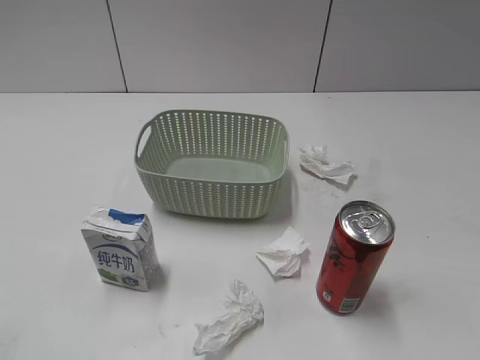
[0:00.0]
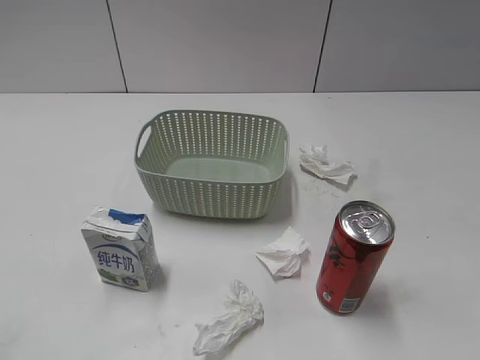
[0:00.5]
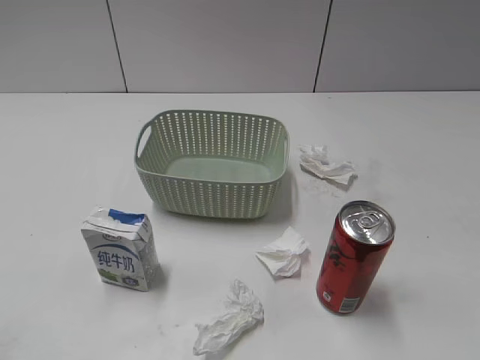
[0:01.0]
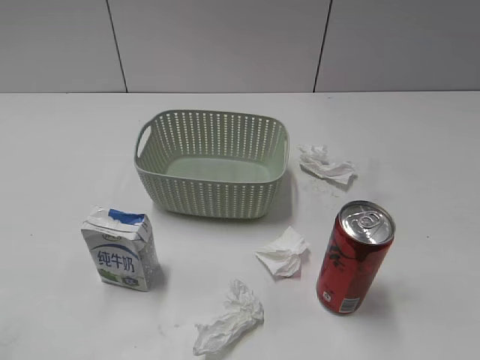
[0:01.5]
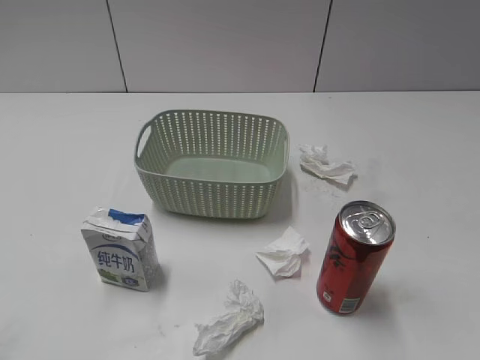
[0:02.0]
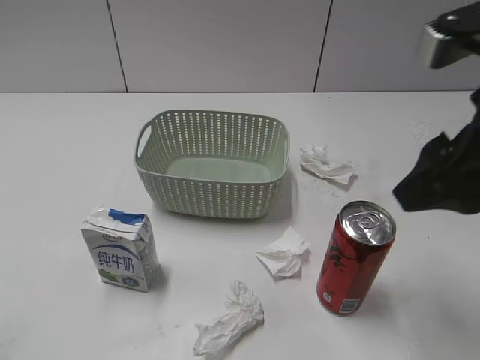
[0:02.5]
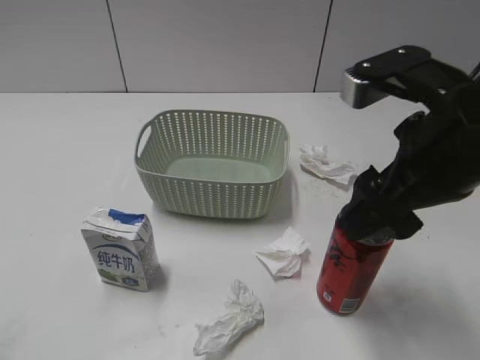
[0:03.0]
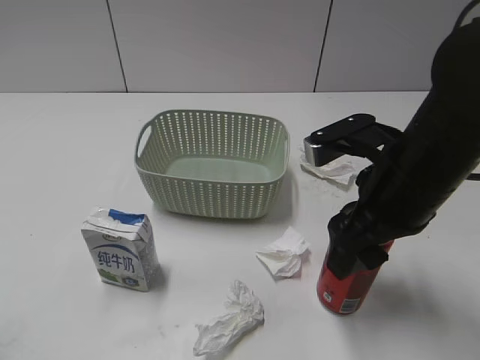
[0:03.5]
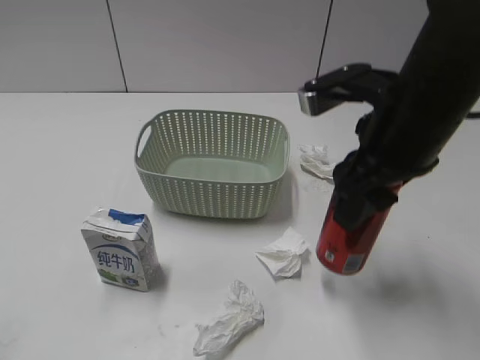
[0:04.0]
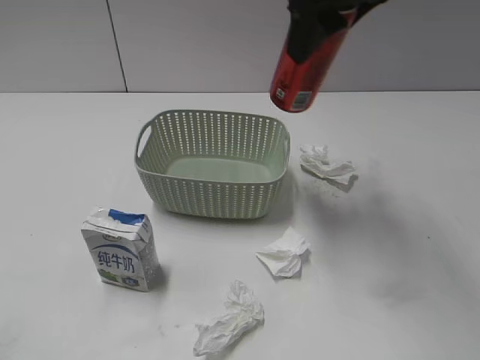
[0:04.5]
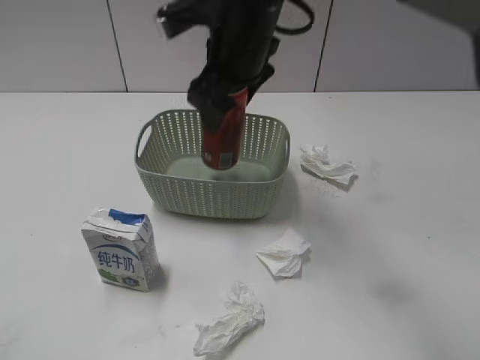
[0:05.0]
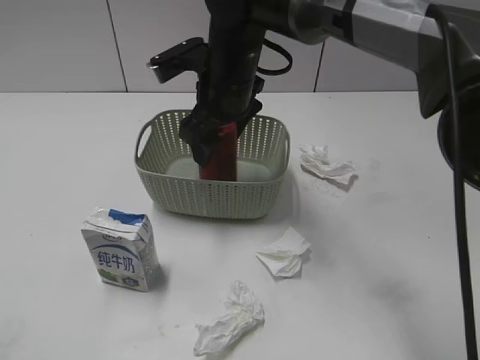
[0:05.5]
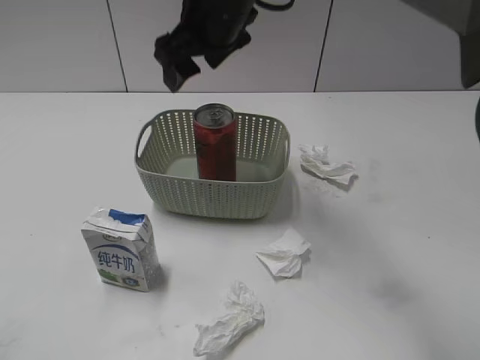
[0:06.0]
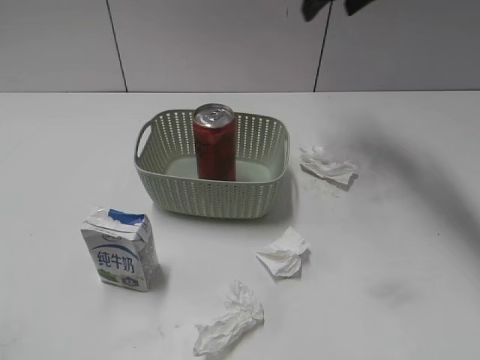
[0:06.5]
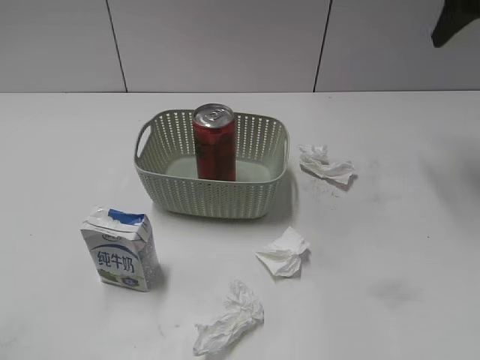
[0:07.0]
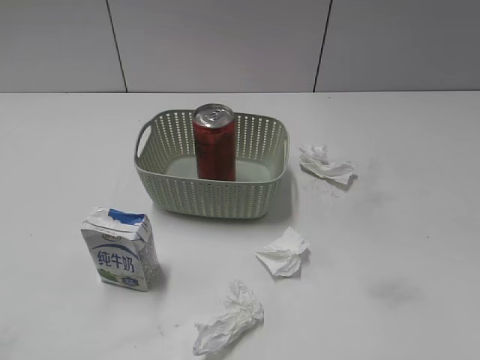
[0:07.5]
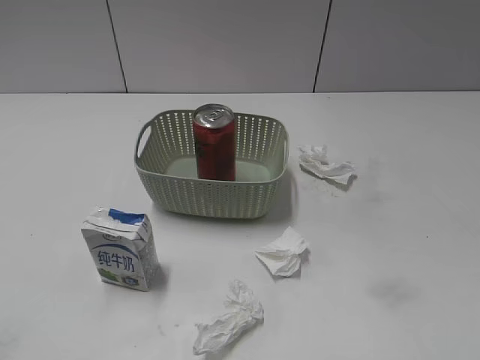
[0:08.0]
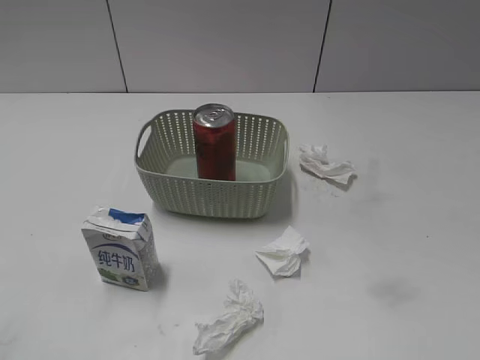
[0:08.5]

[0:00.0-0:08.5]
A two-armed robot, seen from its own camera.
Step, 0:02.5 to 0:03.5: Grasp the cola can with right gripper.
Step, 0:04.0 to 0:06.0: Place the cola can in the basket with right gripper.
0:02.0 to 0:04.0: The right gripper shifts approximately 20 cm to the left, forward and downward, and closes up.
0:04.0 to 0:06.5: The right gripper heads forward, covering about 20 cm, and opens up.
0:06.5 to 0:08.5: The right gripper moves backward, roughly 50 cm.

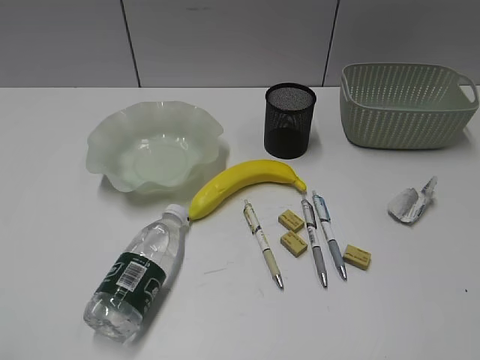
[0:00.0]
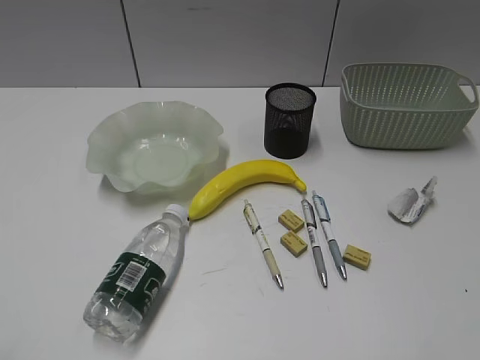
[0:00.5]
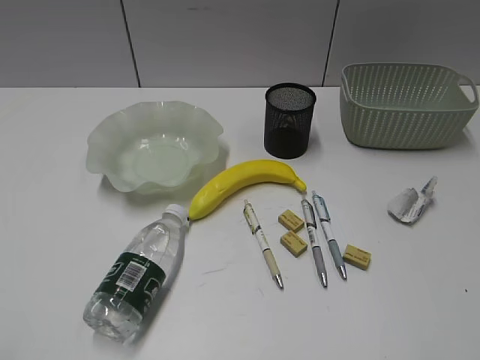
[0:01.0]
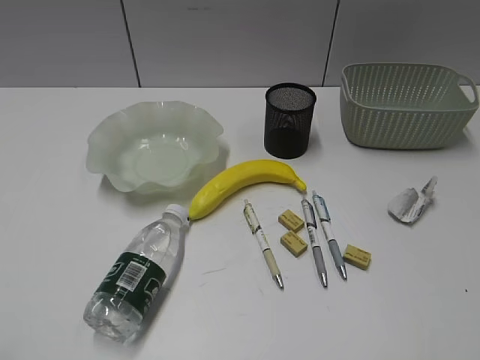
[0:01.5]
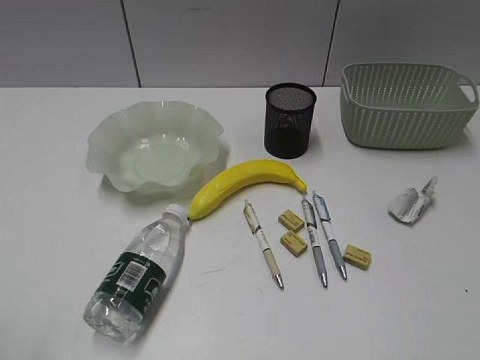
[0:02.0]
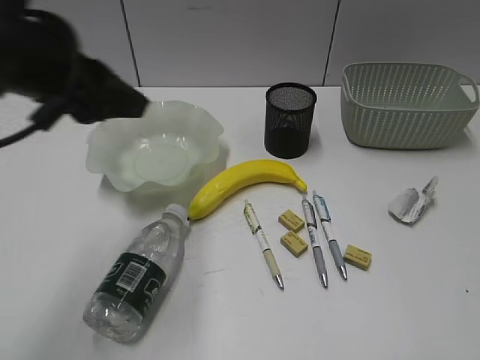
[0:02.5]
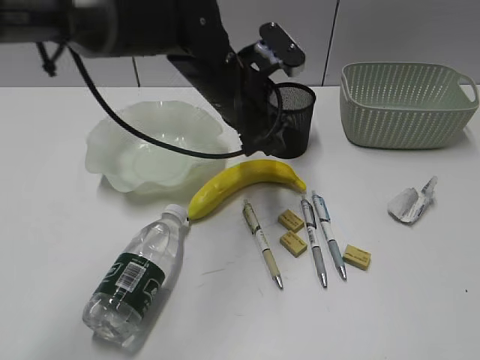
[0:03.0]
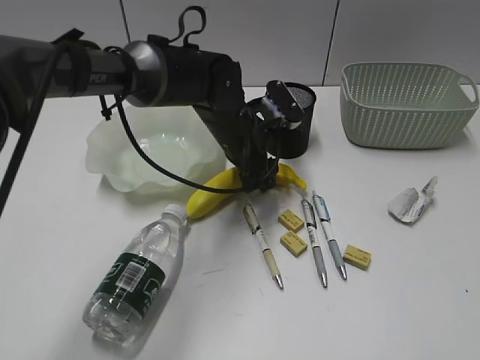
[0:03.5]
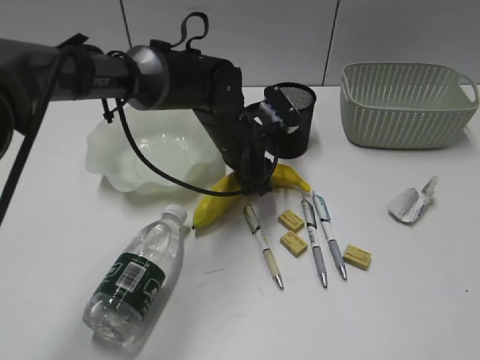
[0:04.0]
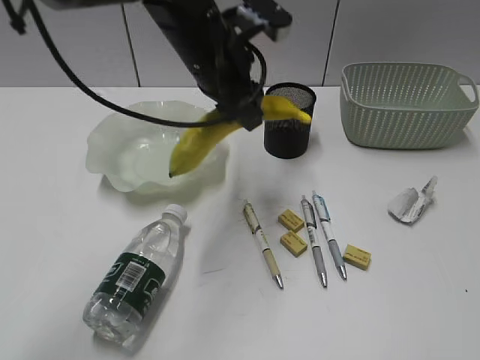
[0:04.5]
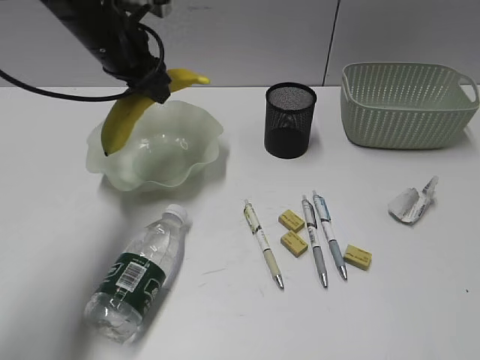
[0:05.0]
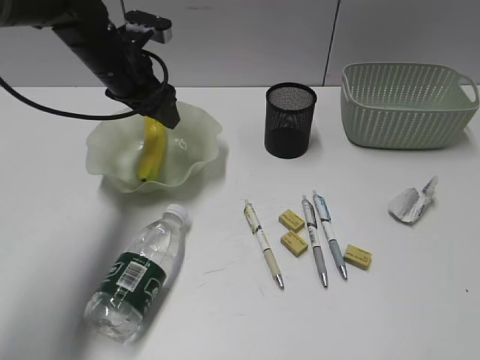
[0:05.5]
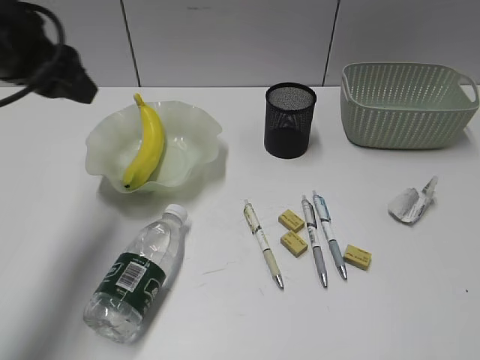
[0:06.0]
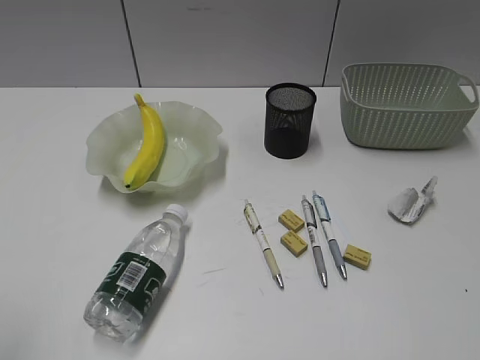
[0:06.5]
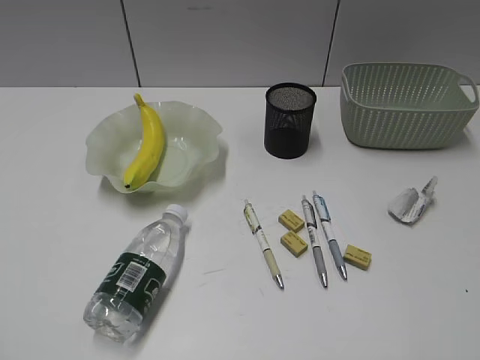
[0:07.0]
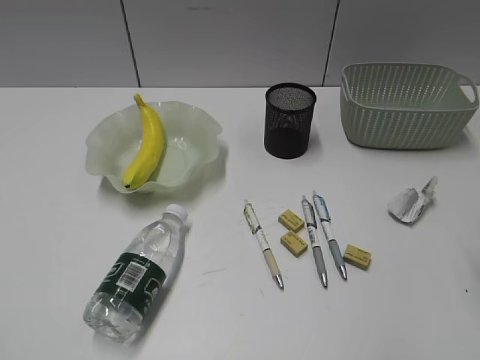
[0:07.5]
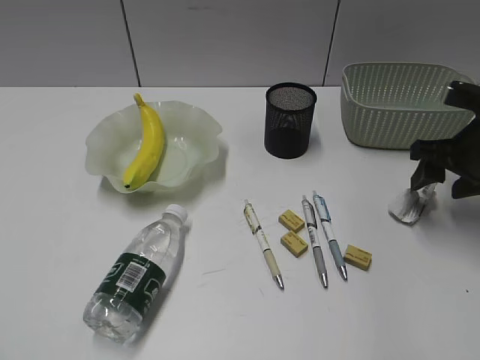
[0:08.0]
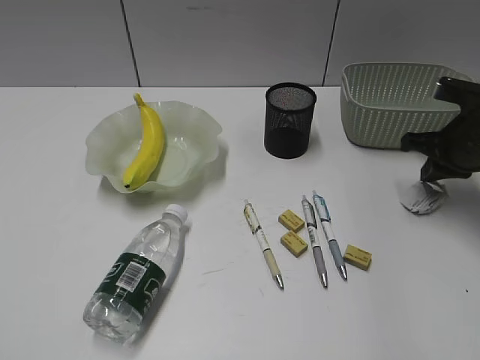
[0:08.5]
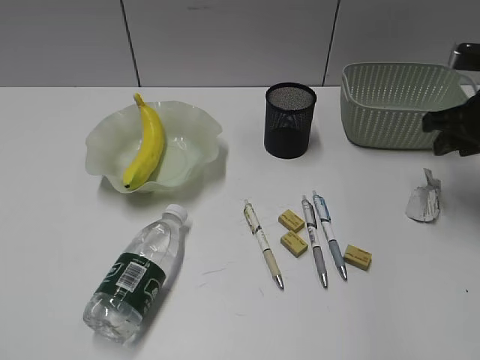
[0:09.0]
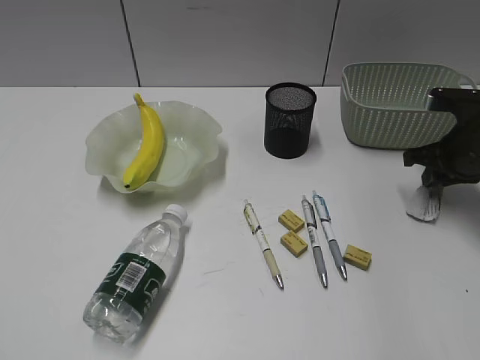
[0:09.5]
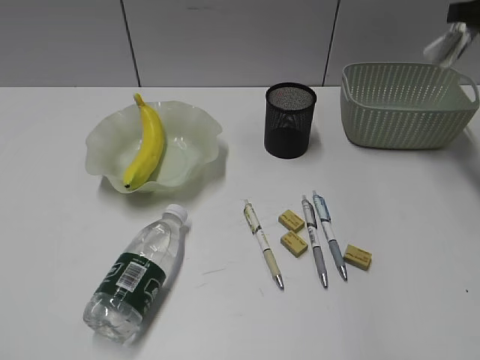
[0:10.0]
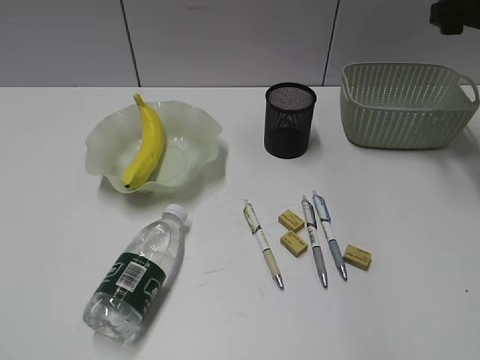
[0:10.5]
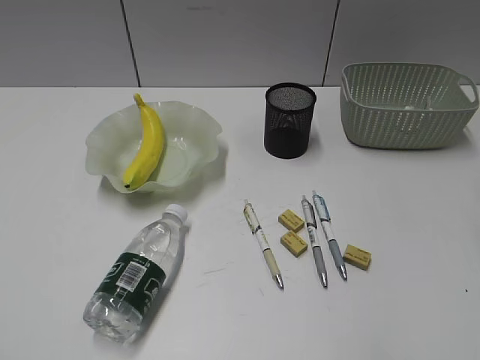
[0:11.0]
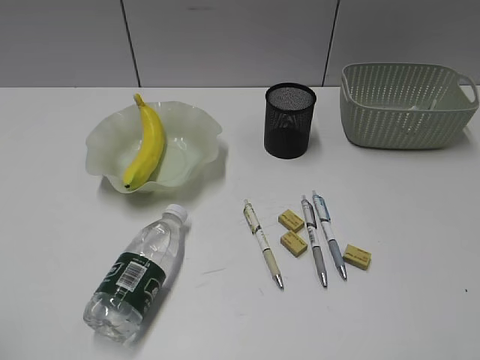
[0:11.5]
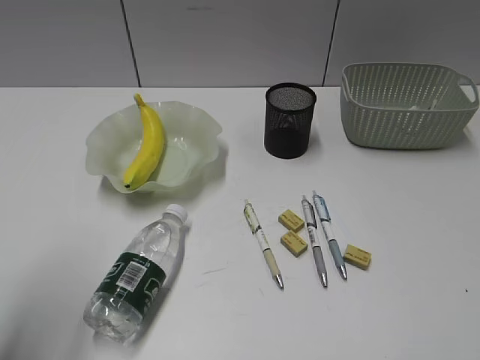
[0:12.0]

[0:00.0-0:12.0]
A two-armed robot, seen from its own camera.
Step, 0:01.5 to 0:03.5: Grasp the banana with left gripper.
Step, 0:04.0 to 0:05.5: Place the banana in the plate with left gripper.
Step, 0:06.0 to 0:09.5: Grasp the waste paper with right gripper.
0:02.0 to 0:04.0: The left gripper shifts approximately 50 cm forward, to the right and downward.
0:04.0 to 0:06.0: The left gripper is displaced to the left and upward by about 25 cm, and opens and closes again.
0:06.0 to 0:08.0: The left gripper moves backward, roughly 35 cm, while the right gripper shifts approximately 35 cm forward.
0:08.0 to 0:10.0: The right gripper goes some 10 cm upward, and closes its fingers.
0:10.0 to 0:12.0: The right gripper moves backward, about 40 cm, and opens its fingers. The left gripper moves forward and to the right, approximately 15 cm, and opens up.

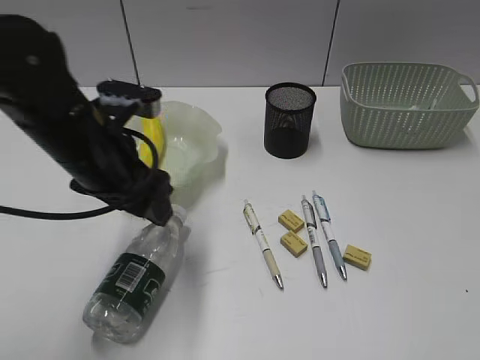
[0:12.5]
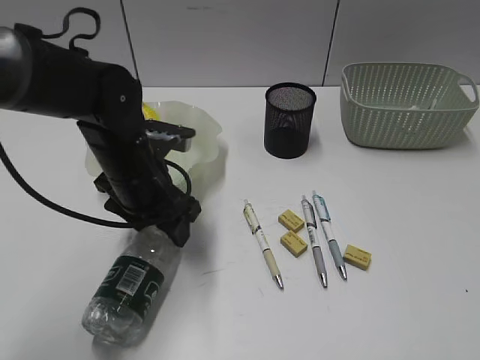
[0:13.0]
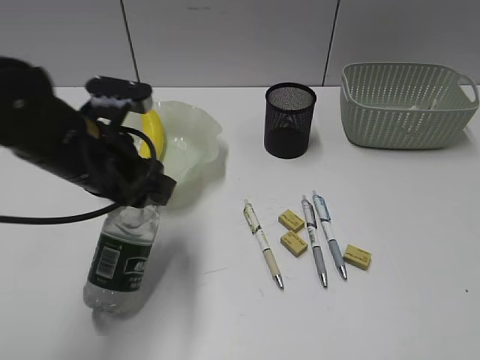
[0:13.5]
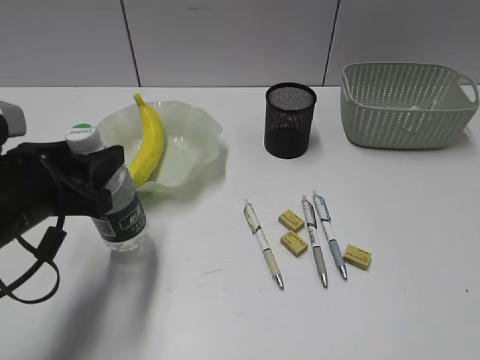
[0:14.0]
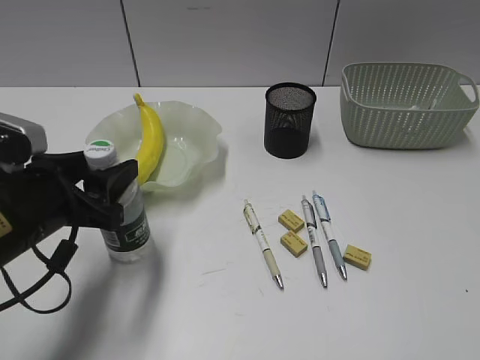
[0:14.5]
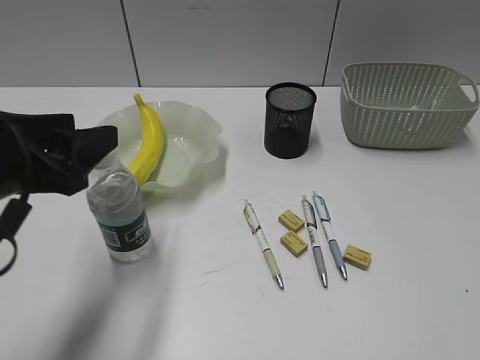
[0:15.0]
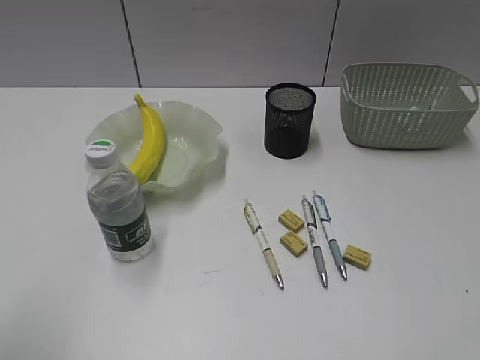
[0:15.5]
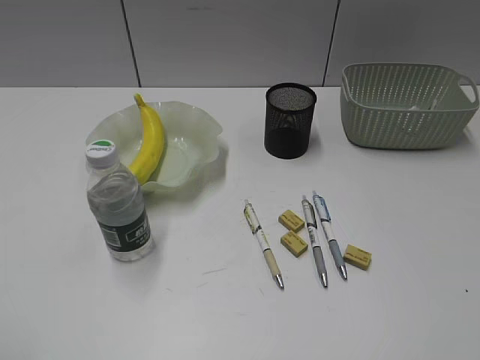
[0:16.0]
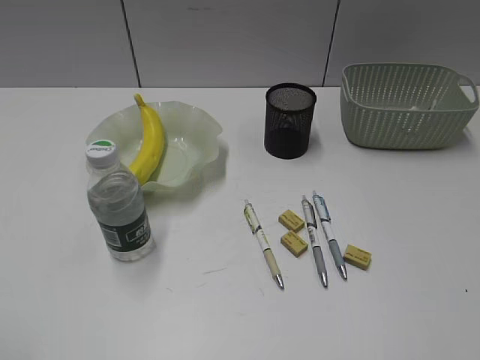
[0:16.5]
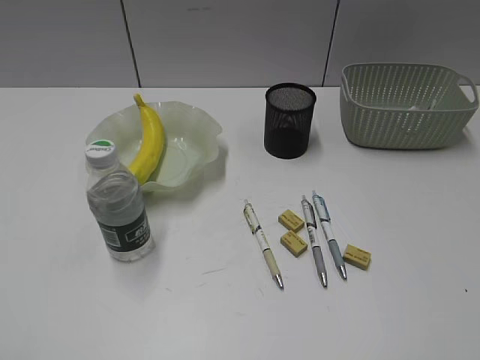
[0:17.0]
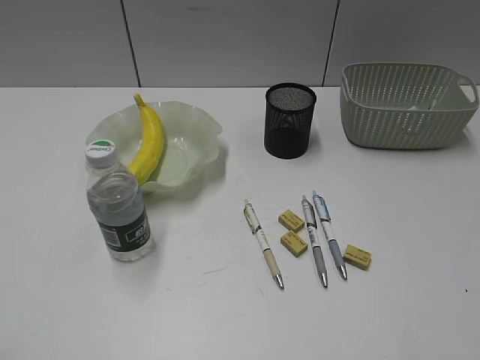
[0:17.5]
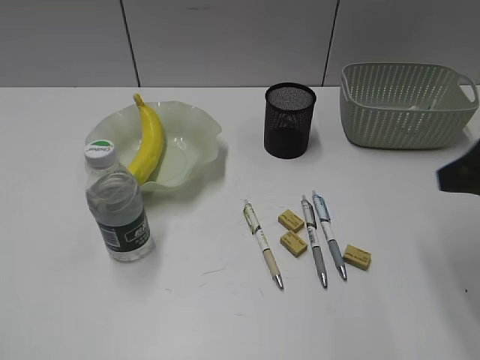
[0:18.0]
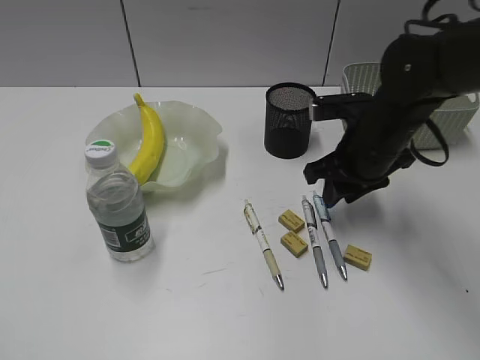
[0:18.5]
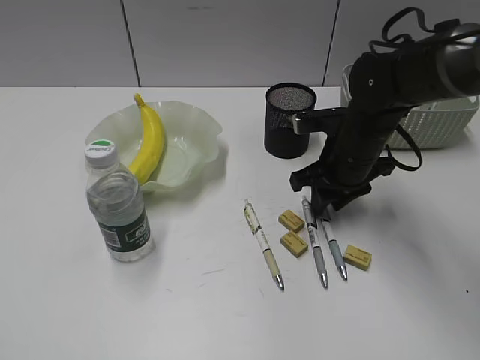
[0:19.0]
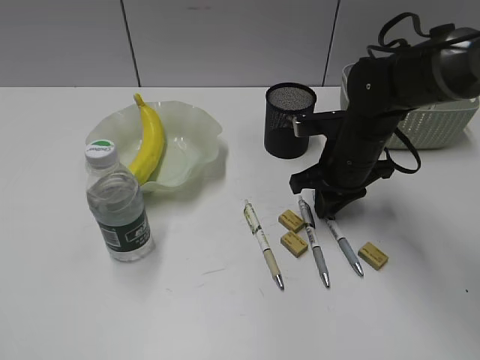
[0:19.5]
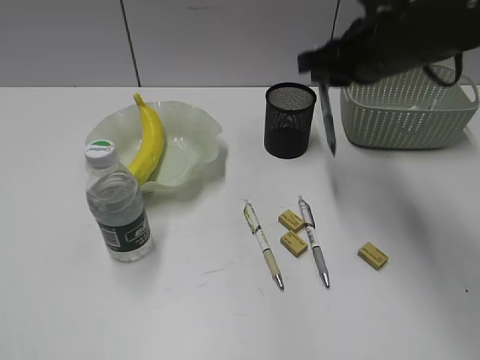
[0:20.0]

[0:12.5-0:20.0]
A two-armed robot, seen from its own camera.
Step, 0:13.5 to 0:14.5: Stand the bottle with left gripper.
Step, 0:15.0 to 0:19.5: Grasp the blue pen with right gripper.
0:12.5 to 0:14.5: The left gripper goes roughly 10 cm backward and to the left.
0:14.5 to 0:16.5: The left gripper shifts approximately 25 cm backward, upward and to the left.
0:16.5 to 0:18.0: The right gripper moves forward, approximately 20 cm.
0:18.0 to 0:20.0: The right gripper shifts approximately 20 cm forward and to the left, and closes.
